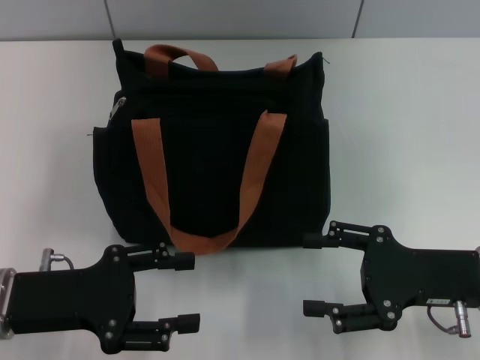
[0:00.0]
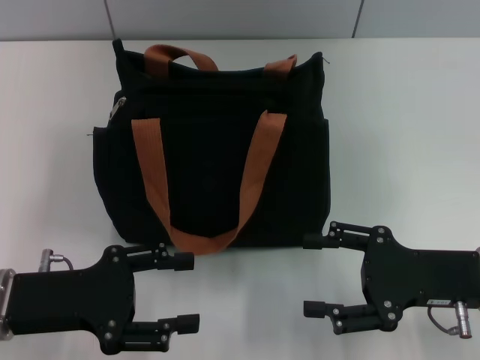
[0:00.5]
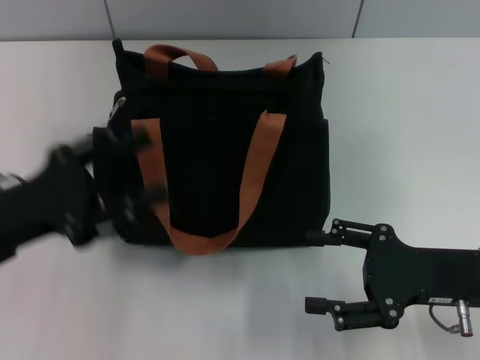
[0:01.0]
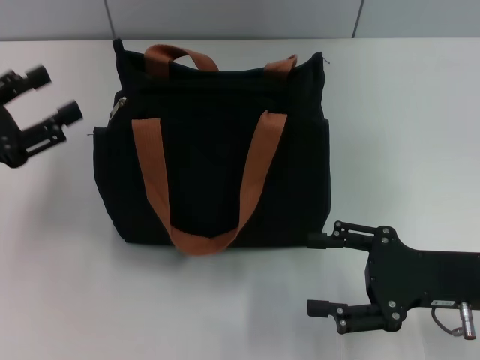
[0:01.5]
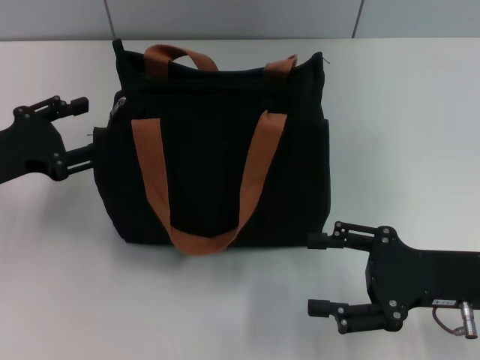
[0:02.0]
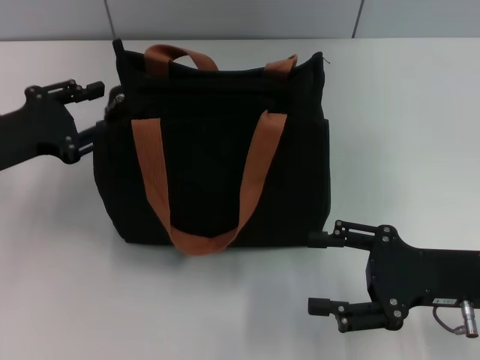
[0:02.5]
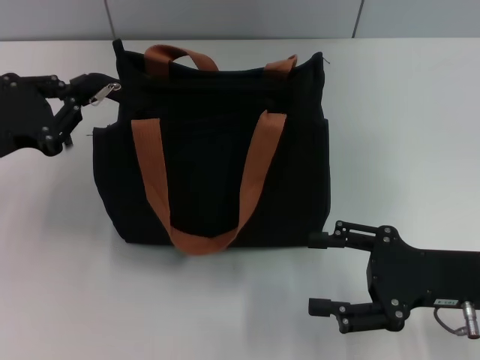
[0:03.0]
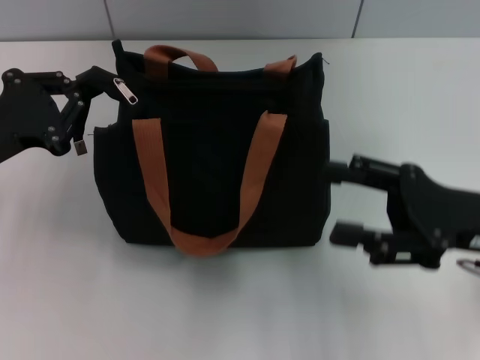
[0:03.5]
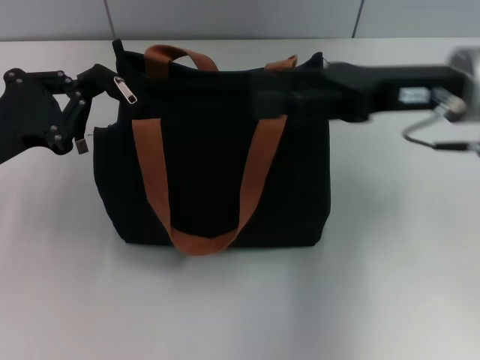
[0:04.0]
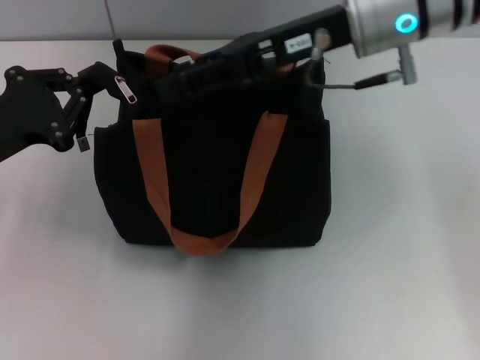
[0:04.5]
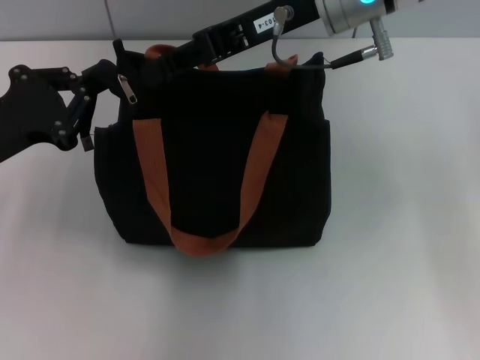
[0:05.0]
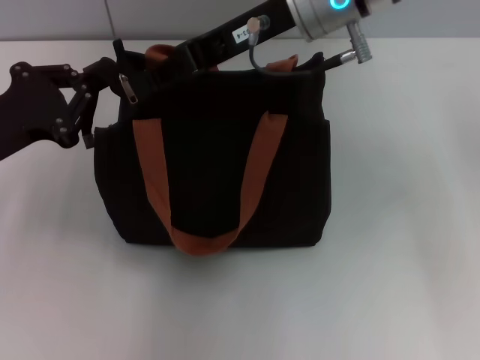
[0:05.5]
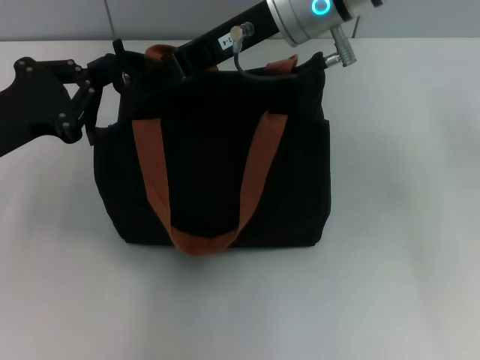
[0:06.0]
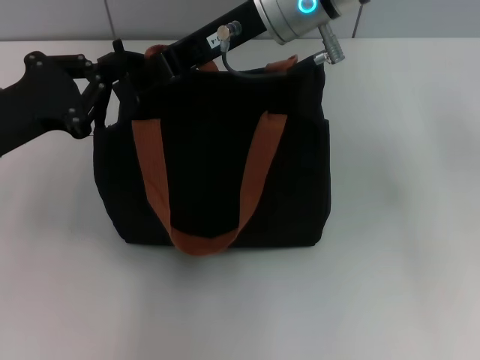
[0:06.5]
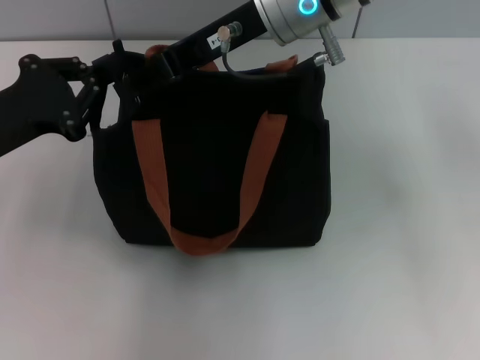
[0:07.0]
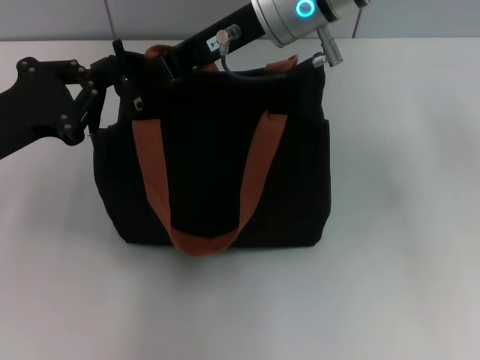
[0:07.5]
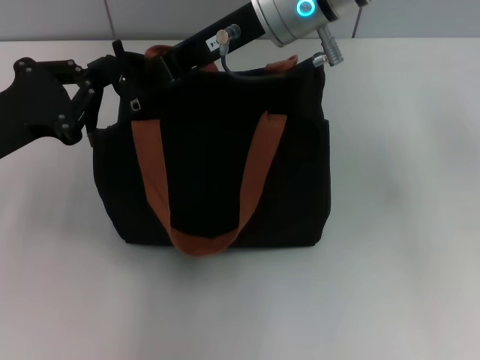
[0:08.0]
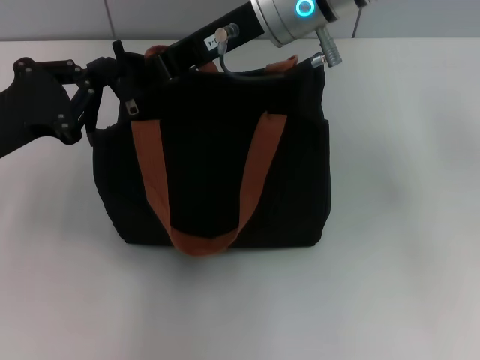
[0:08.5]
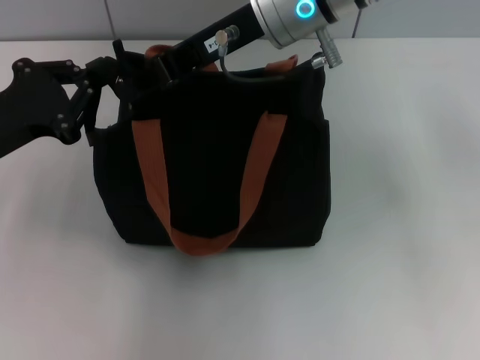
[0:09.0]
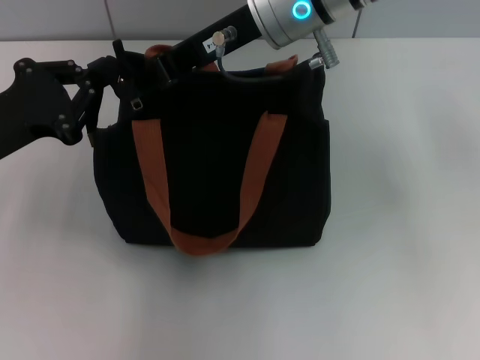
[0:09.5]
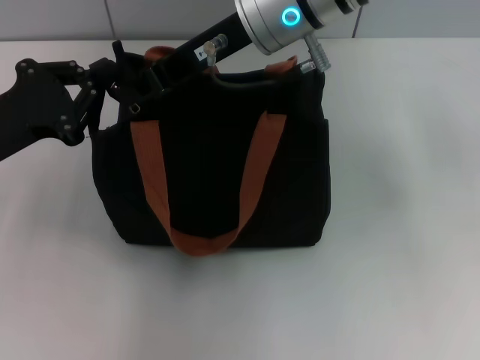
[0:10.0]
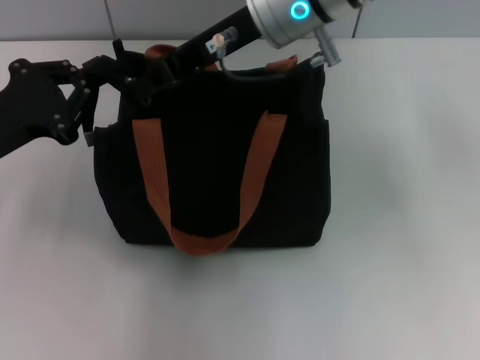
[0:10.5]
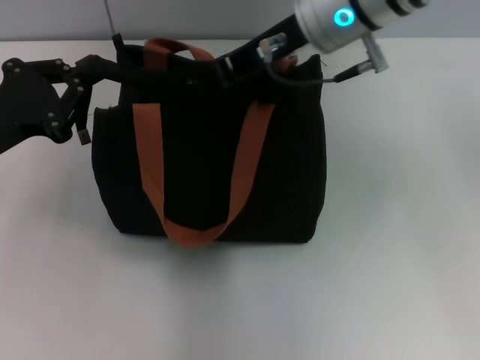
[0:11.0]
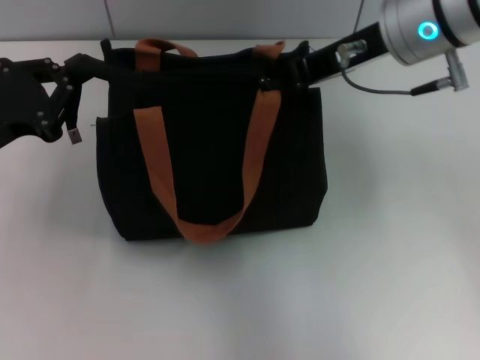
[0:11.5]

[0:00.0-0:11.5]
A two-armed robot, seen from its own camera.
0:00.0 to 0:02.0: The left gripper is displaced forward and to the left by about 10 cm.
0:02.0 to 0:04.0: The left gripper closes. Meanwhile the right gripper shifts some 15 cm upward and forward.
0:04.0 to 0:06.0: The right gripper travels to the left and forward by roughly 15 cm, and closes up.
0:06.0 to 0:09.5: The two grippers keep their place.
0:09.5 to 0:11.5: The right gripper goes about 10 cm to the right.

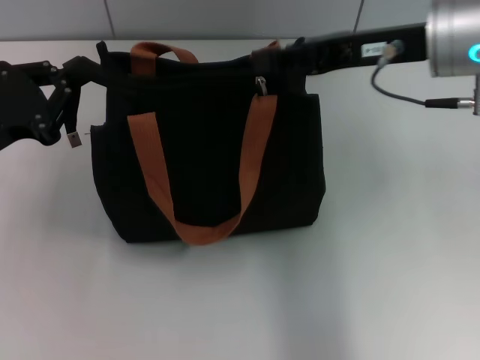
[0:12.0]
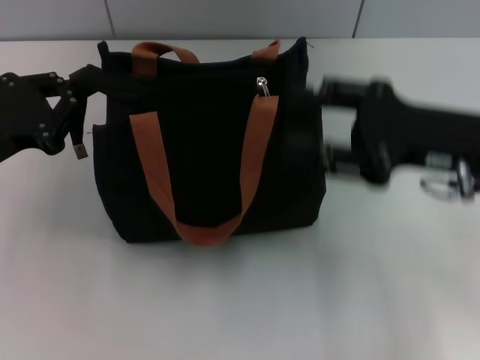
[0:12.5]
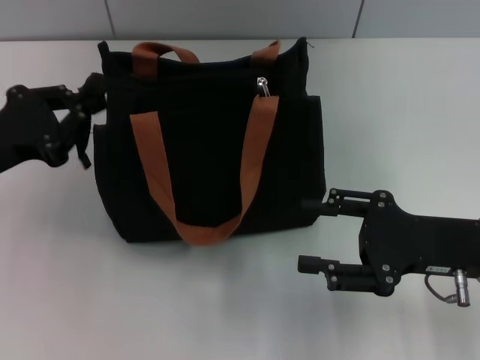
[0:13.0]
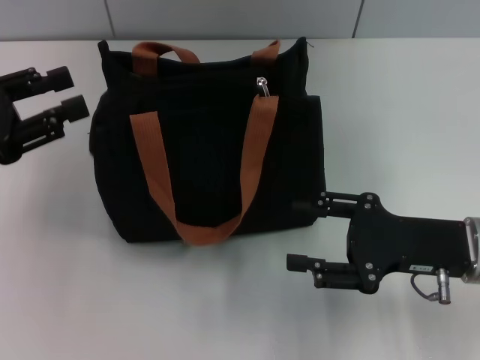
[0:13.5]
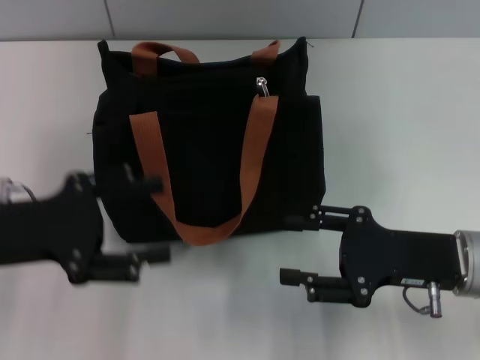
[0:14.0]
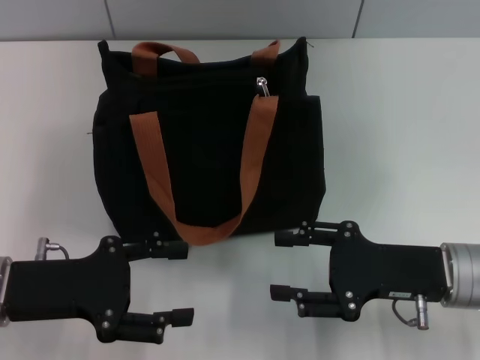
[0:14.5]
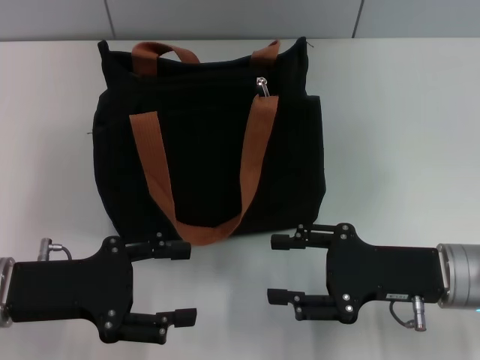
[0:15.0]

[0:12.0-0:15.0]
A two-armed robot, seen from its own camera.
Step, 0:12.5 to 0:13.5: Grab the zipper with your left hand.
0:12.0 to 0:13.5: The left gripper opens. The right gripper heads downward and backward, covering approximately 20 cm, and opens.
0:13.5 to 0:15.0: The left gripper goes about 10 cm downward, to the right and backward, and opens up.
